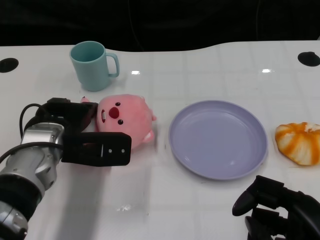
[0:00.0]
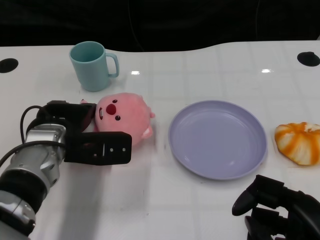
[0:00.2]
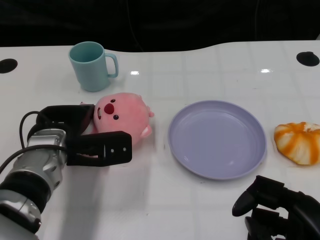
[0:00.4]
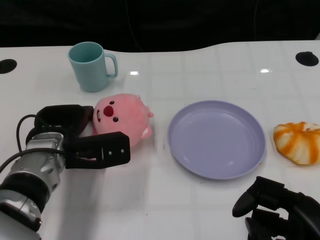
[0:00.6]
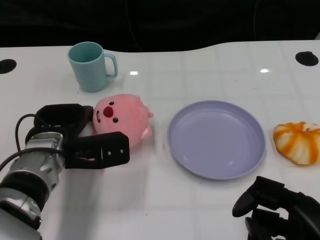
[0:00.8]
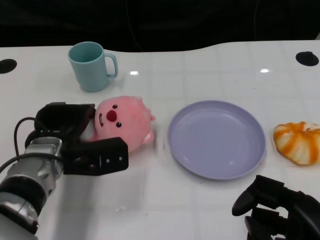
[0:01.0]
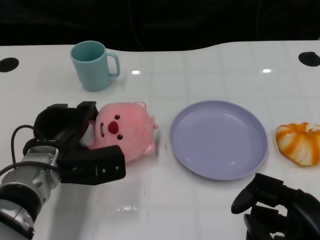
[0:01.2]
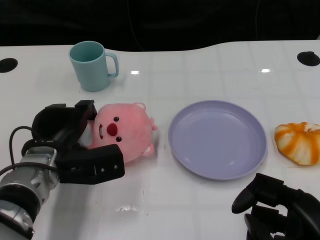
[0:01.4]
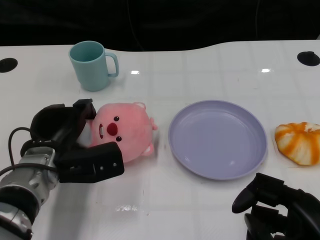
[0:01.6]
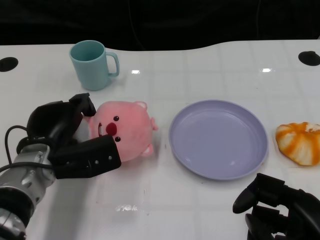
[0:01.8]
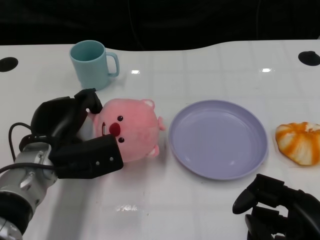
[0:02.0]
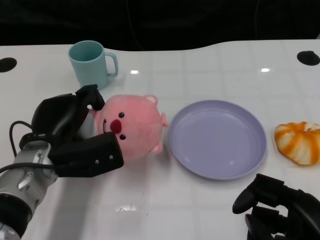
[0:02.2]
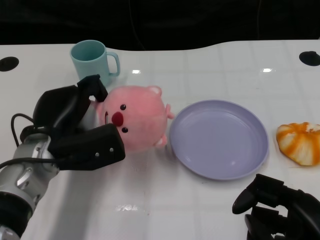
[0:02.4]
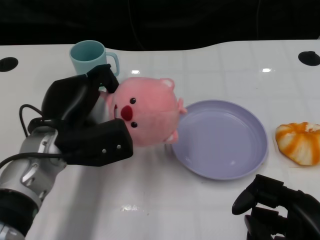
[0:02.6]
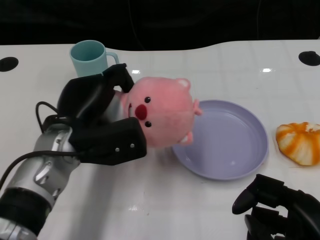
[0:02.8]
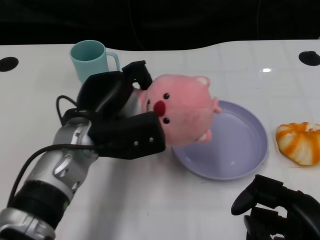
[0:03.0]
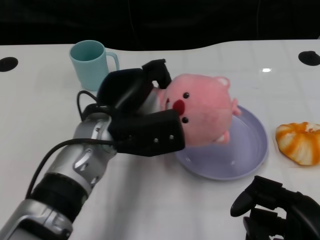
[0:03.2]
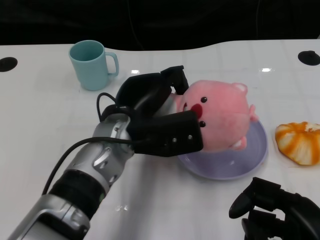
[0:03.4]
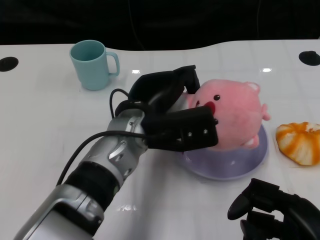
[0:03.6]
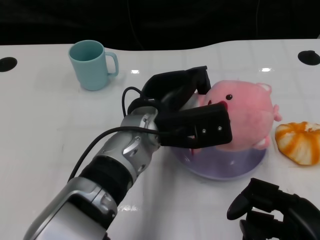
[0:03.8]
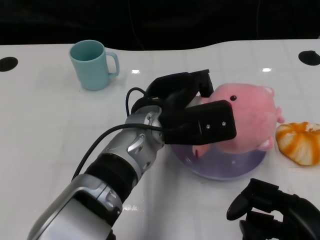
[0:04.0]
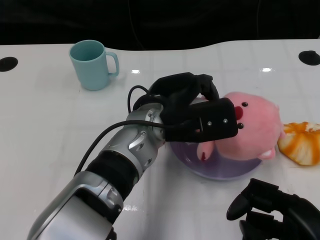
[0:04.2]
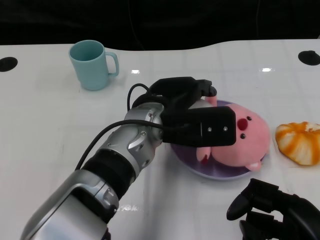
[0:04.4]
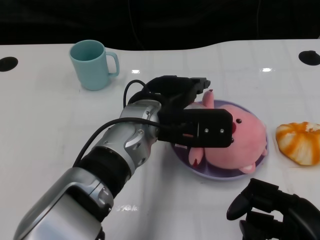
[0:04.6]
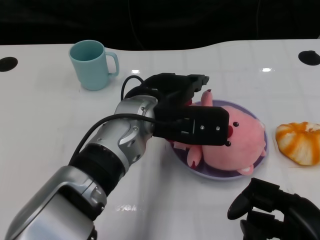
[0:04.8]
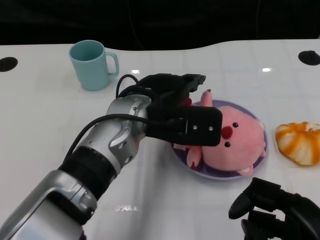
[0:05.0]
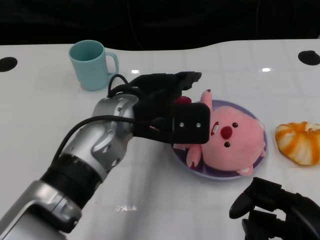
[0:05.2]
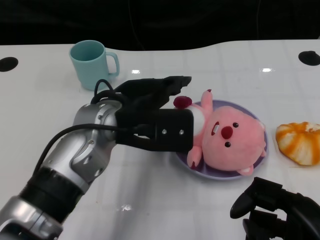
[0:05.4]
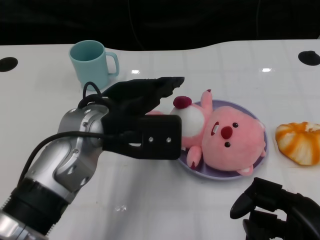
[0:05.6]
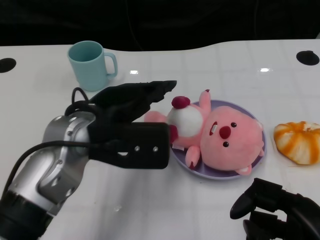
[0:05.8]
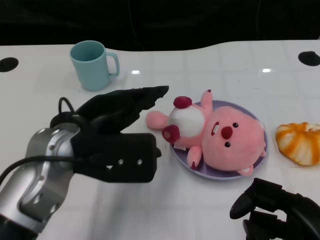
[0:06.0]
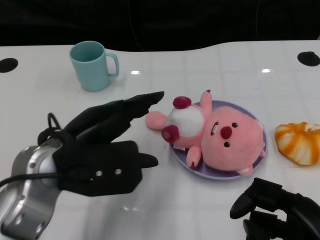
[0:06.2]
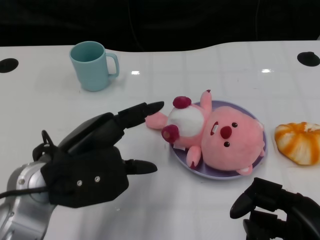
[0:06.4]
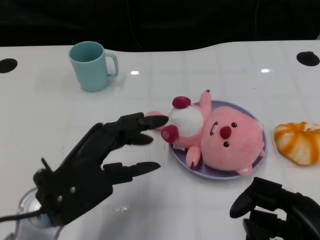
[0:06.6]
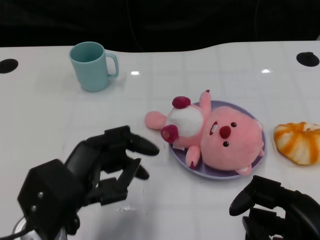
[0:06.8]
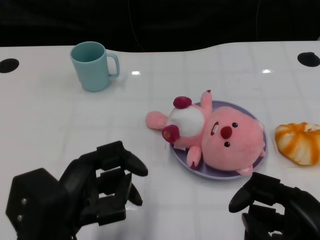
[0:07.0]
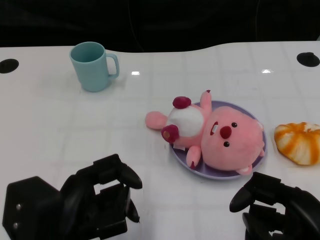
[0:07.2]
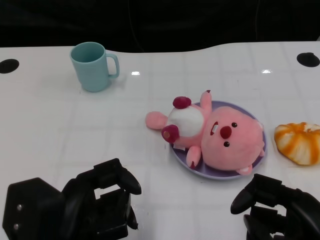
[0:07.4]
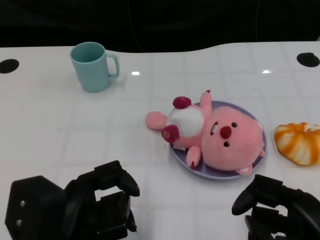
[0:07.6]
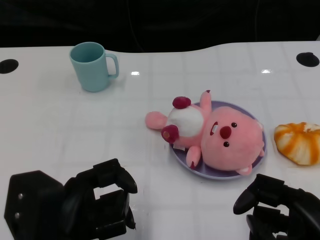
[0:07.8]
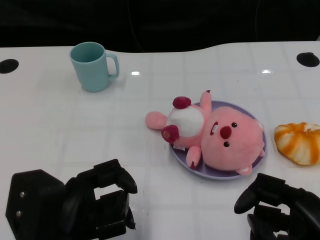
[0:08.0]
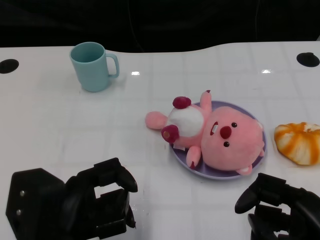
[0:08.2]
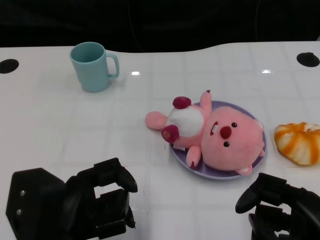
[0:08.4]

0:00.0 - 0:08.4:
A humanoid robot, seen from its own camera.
Task of the whole recording: Pick up the doll on one side of the plate and place it into the plate.
Step, 0:00.0 - 0:02.0: Grasp the pink doll with the left gripper.
Step, 0:02.2 - 0:05.2: Place the pink doll into the plate with the left gripper.
0:01.4 - 0:02.8: The left hand is displaced upward by approximately 5 cm.
0:02.8 - 0:04.2: The left hand goes some 15 cm to the right.
0:04.2 - 0:05.6: The left hand goes some 10 cm to the left.
0:05.6 - 0:07.0: The left hand travels backward, to the left and downward by some 15 cm.
0:07.0 - 0:08.4: The hands make only small movements.
